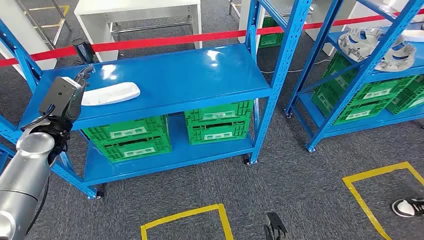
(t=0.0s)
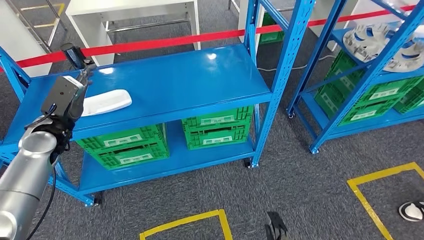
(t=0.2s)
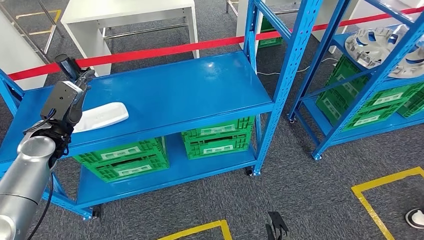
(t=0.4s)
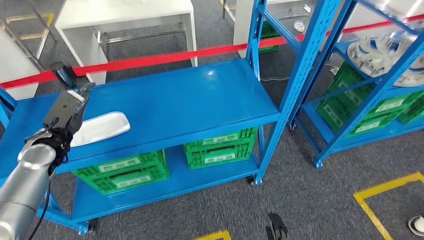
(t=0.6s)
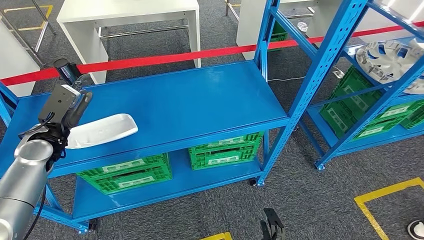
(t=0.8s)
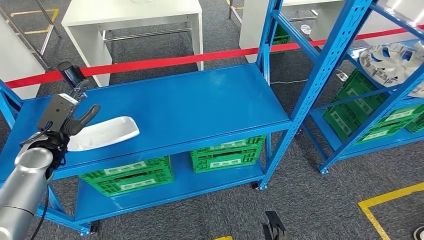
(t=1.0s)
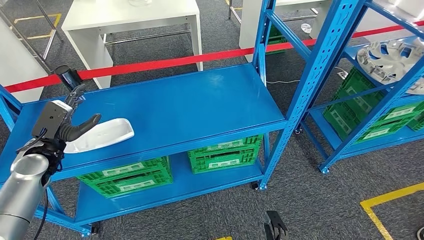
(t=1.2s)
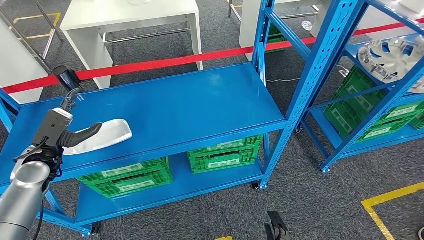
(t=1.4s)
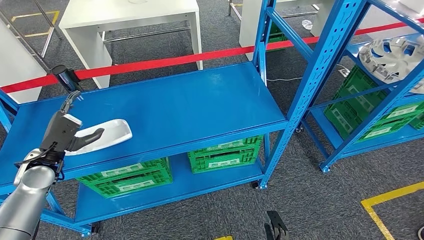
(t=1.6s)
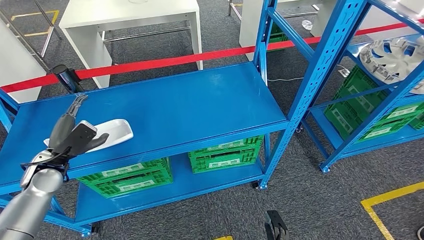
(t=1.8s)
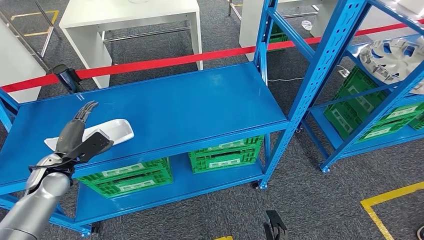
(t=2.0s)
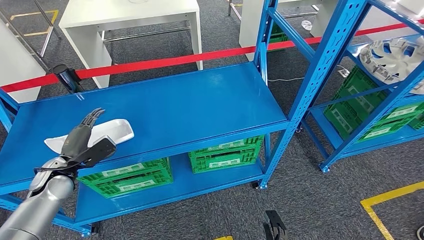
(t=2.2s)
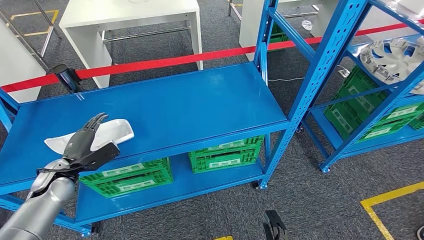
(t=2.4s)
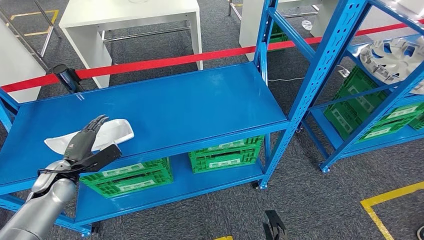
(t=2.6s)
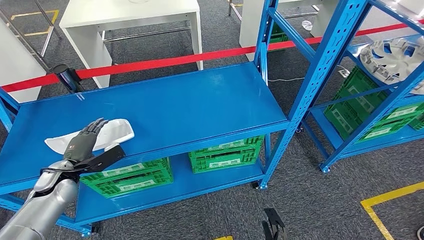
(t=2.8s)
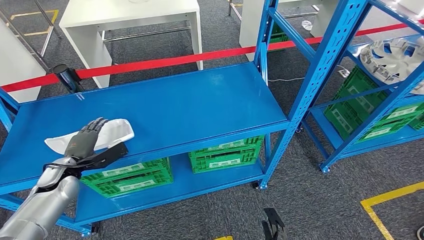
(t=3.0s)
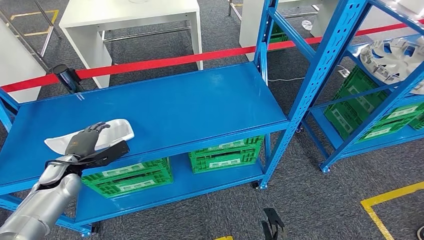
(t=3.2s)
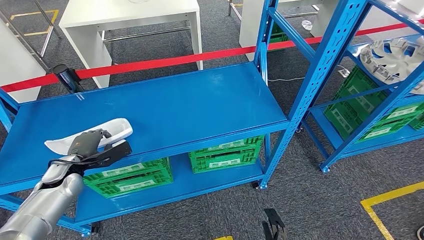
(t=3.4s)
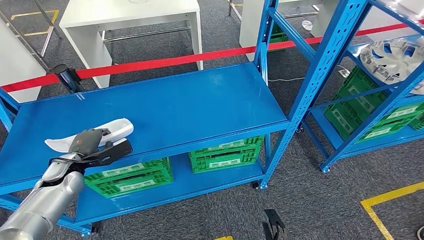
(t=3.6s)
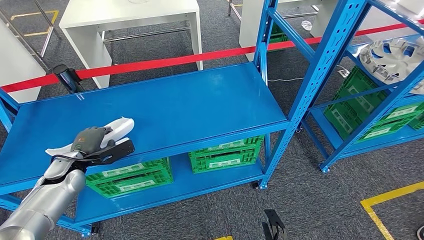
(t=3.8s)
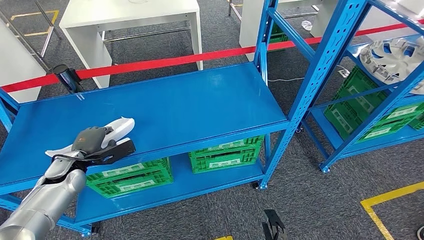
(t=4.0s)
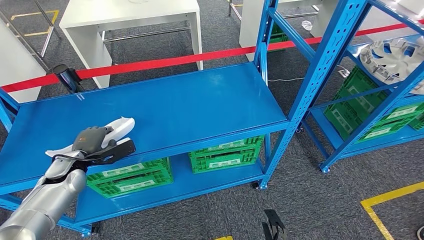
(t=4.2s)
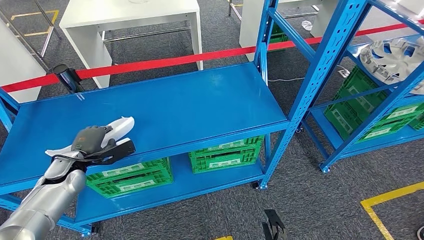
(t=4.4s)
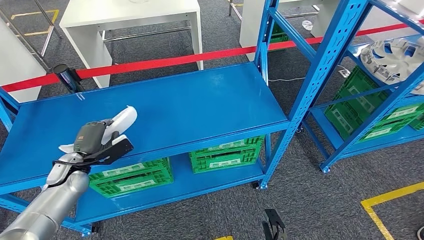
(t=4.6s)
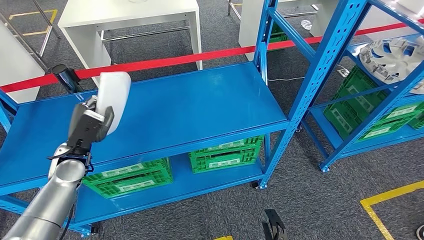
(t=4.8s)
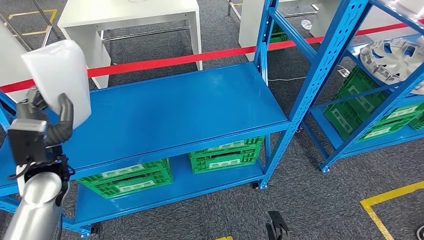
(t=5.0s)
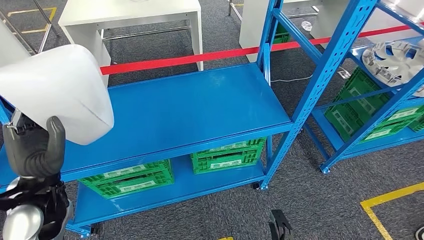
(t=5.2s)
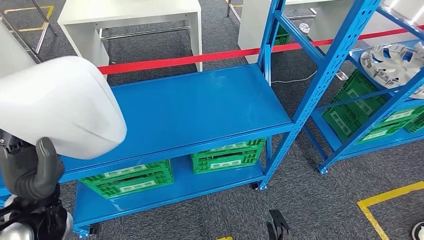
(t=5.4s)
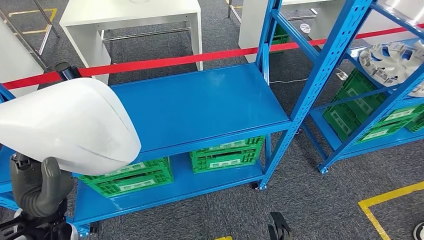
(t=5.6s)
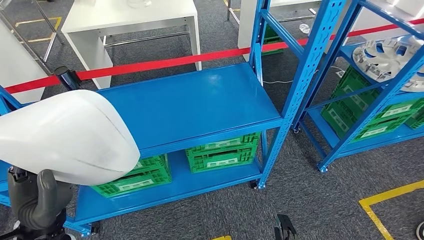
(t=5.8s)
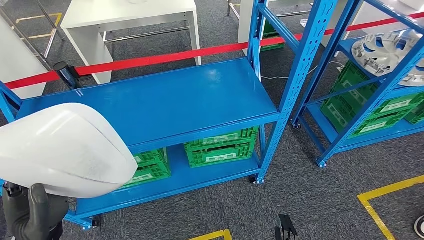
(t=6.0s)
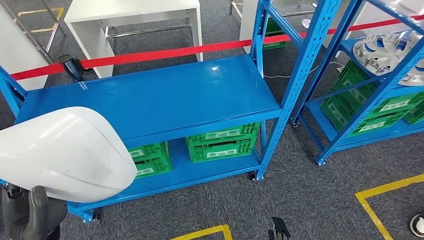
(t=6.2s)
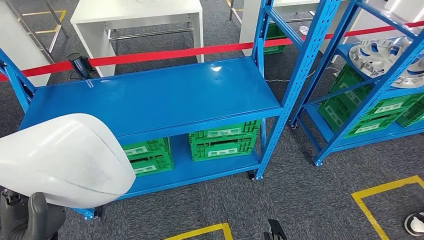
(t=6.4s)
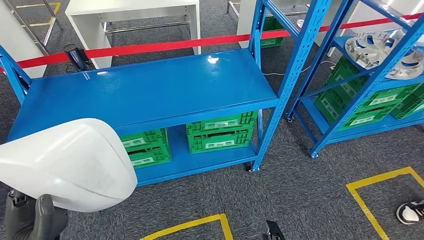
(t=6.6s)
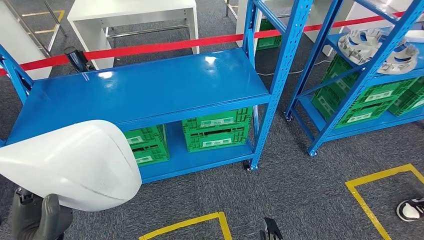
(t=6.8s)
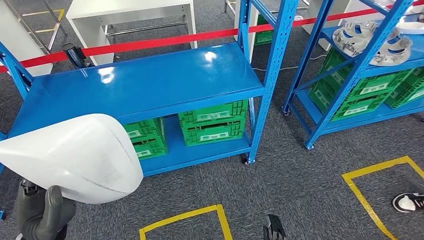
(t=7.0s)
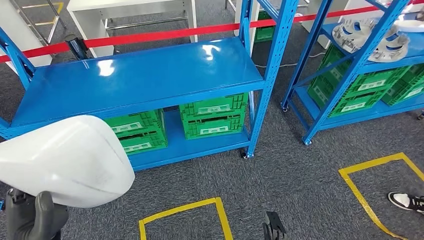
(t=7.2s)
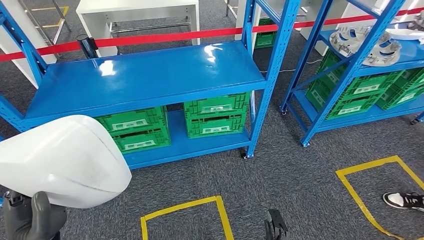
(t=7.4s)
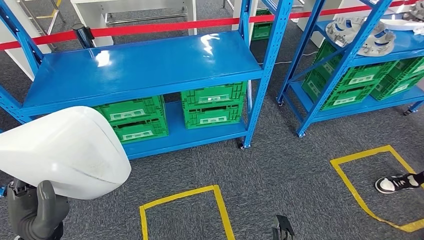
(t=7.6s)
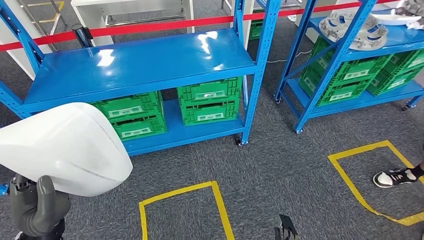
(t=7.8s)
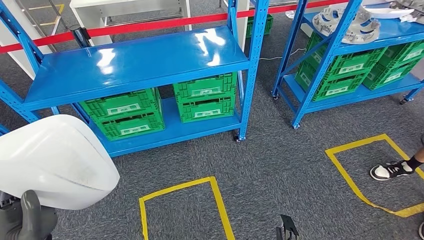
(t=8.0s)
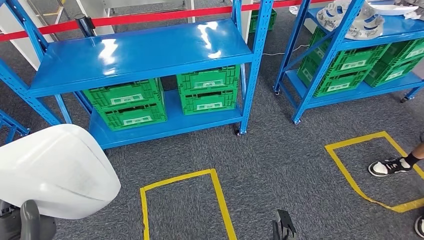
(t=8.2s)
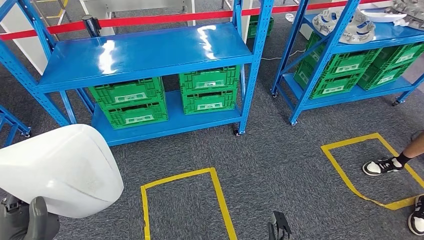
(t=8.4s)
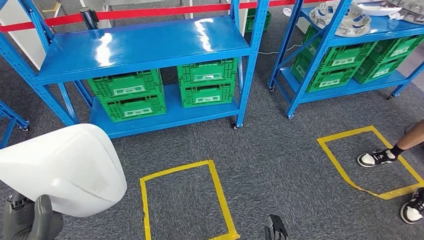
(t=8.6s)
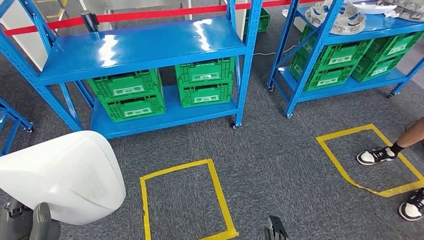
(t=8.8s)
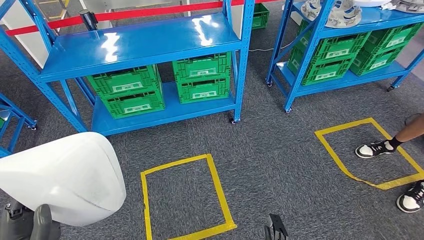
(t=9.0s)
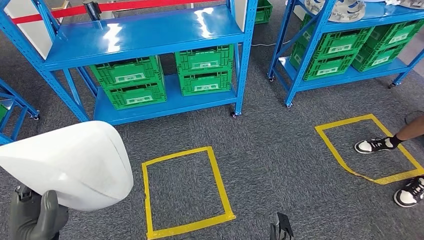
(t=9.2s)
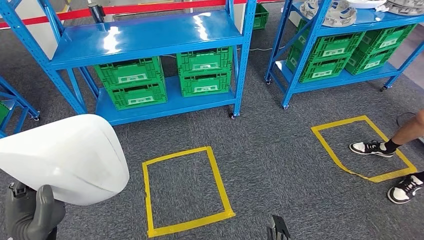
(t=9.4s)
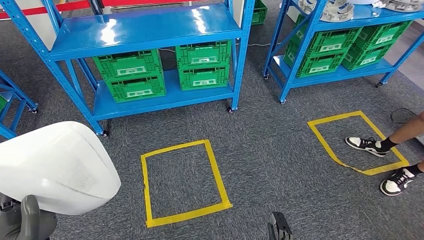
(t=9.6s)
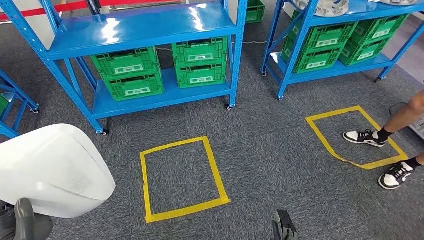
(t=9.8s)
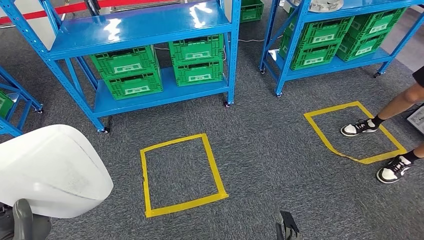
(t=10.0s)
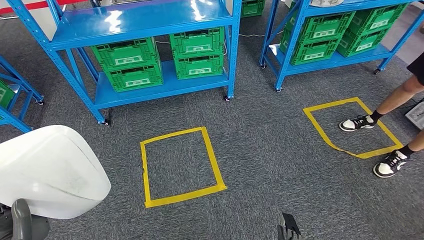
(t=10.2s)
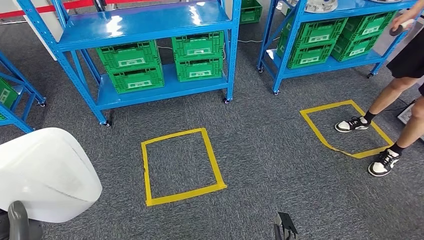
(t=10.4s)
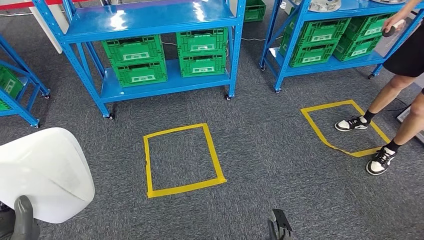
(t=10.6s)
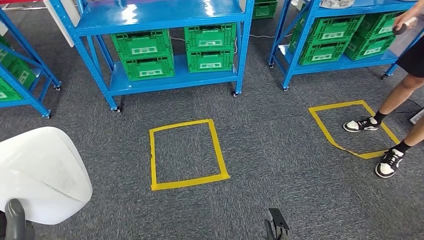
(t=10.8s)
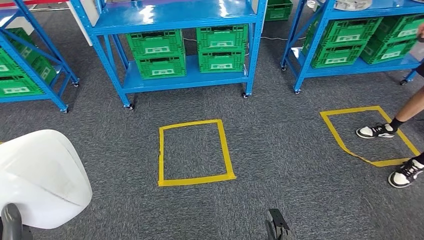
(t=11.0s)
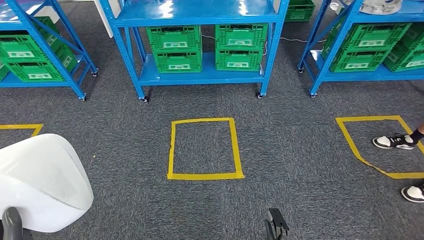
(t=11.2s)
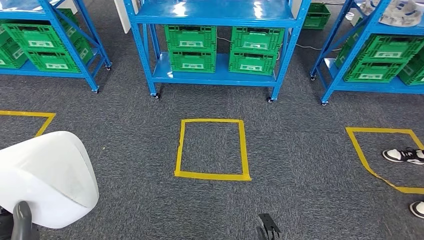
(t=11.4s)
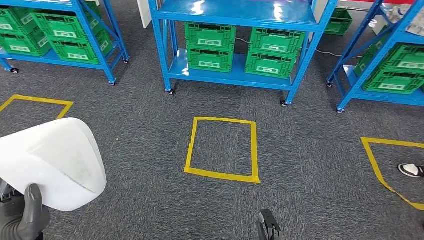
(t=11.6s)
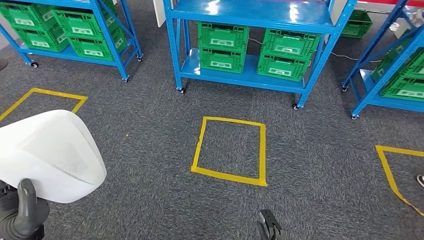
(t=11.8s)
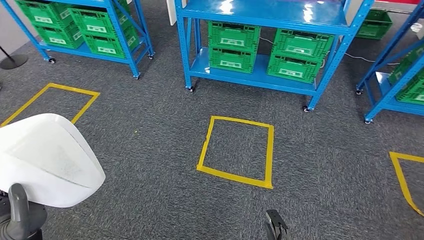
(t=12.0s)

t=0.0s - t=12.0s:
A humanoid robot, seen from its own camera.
Step, t=0.0s - t=5.6s: Pick up the small parts from the shelf.
t=3.0s - t=4.4s: The hands stay close to where they were, moving slightly.

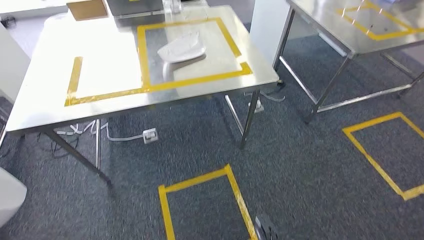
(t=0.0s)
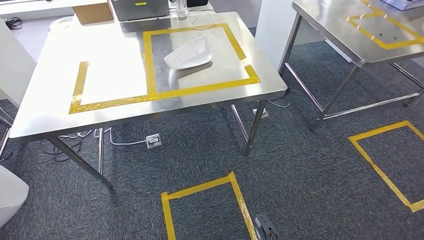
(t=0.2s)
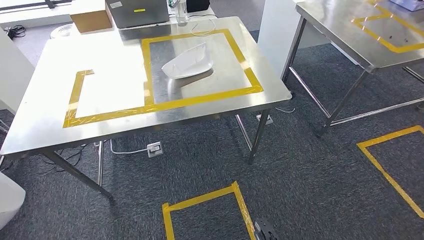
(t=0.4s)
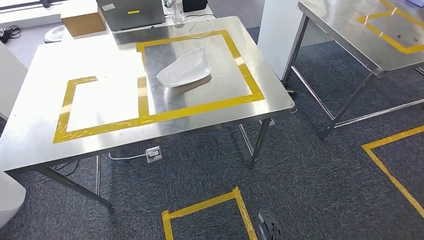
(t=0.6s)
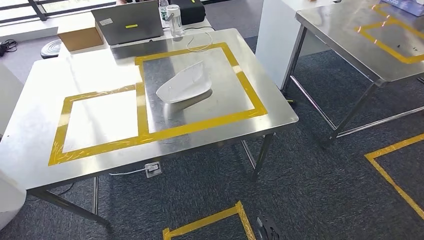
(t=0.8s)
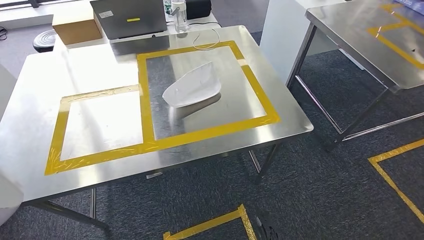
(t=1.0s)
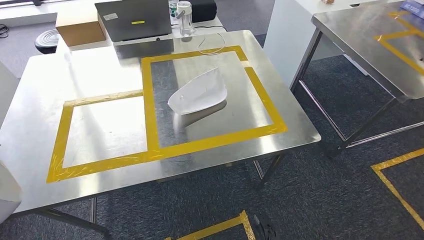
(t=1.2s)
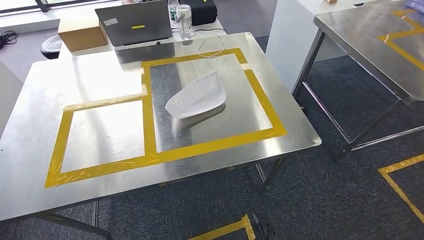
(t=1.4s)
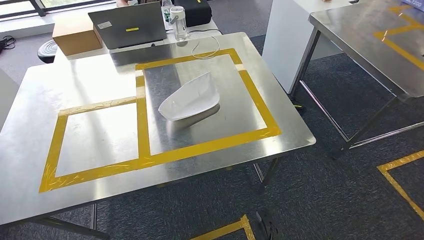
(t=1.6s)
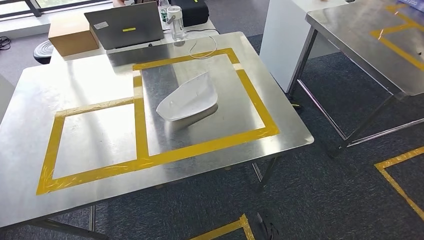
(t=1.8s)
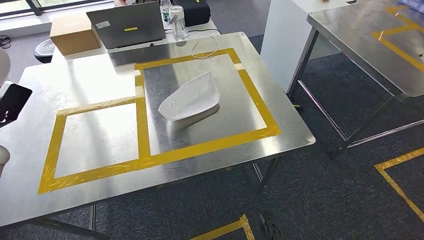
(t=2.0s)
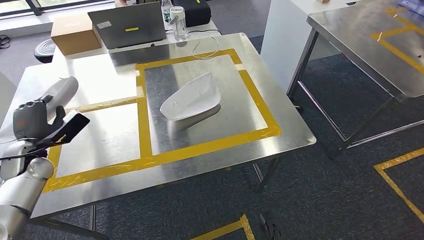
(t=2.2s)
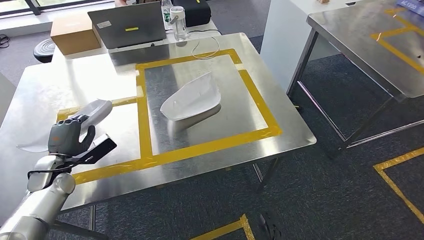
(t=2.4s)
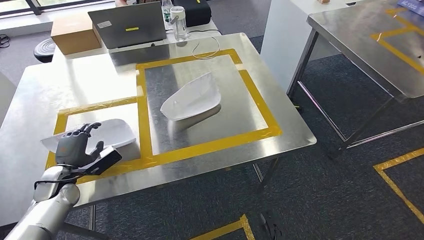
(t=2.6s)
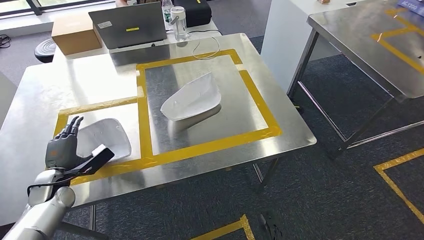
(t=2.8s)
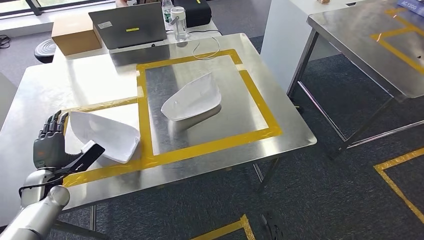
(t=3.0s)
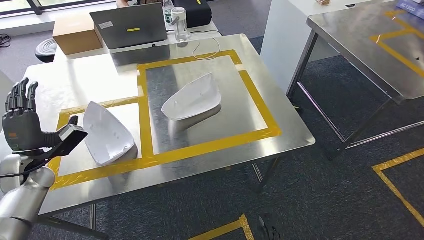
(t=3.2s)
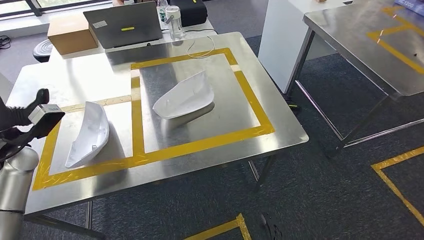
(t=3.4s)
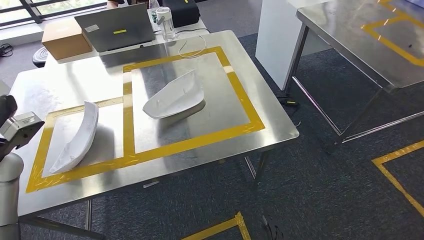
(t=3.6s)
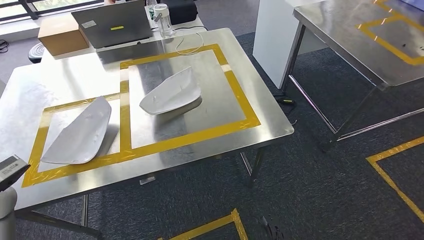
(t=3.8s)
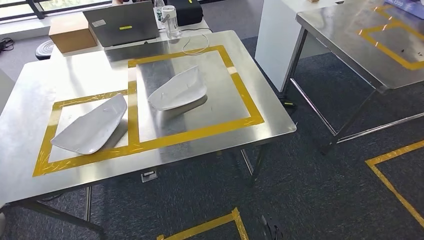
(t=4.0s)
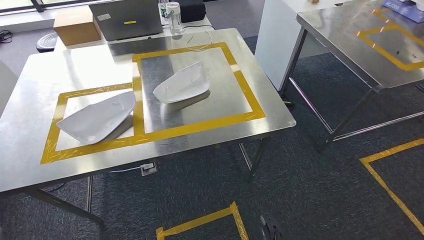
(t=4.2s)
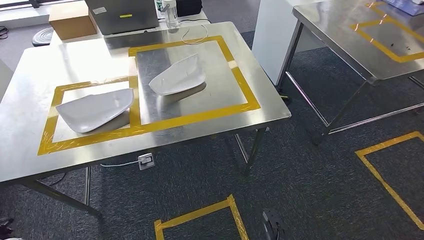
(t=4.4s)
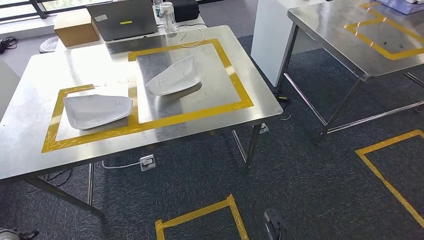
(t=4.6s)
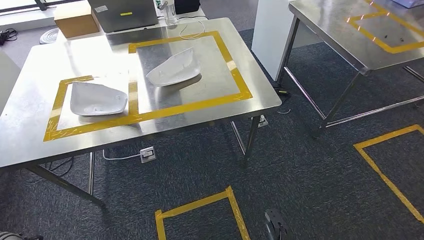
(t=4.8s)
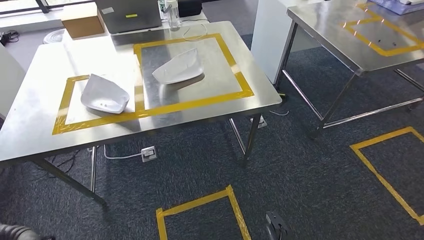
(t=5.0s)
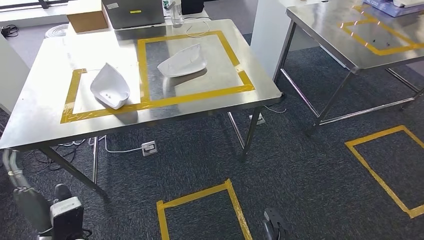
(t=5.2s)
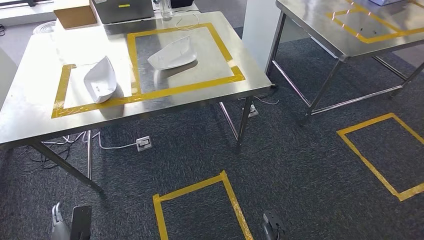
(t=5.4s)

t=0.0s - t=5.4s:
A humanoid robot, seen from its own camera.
Step, t=0.0s - t=2.0s: Move the small parts to the workbench.
Step, t=2.4s - t=4.8s: Insert the small parts into the corresponding slots on the workbench.
